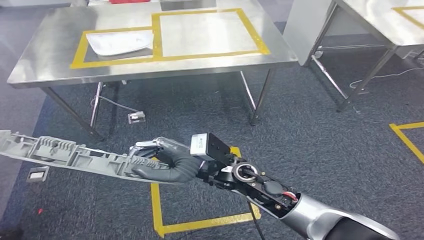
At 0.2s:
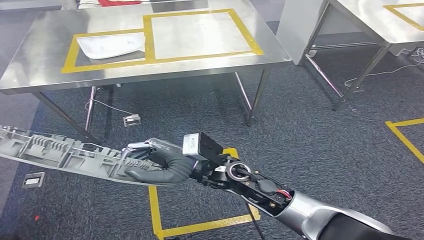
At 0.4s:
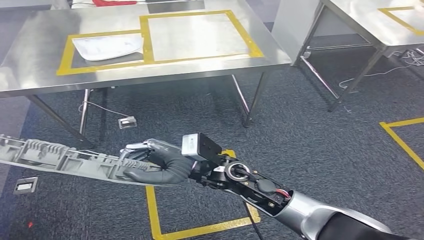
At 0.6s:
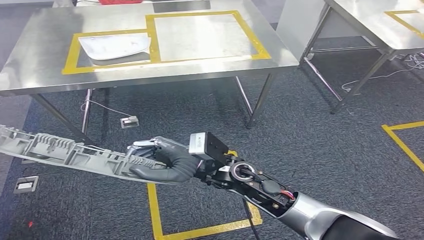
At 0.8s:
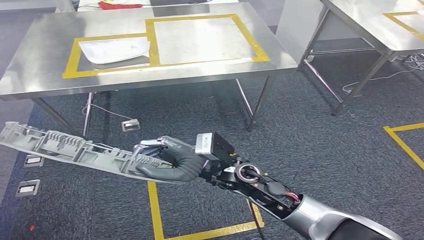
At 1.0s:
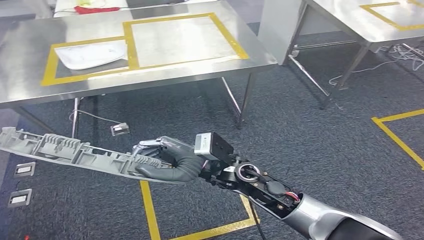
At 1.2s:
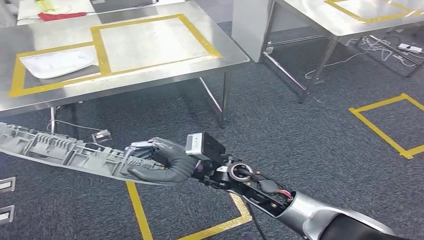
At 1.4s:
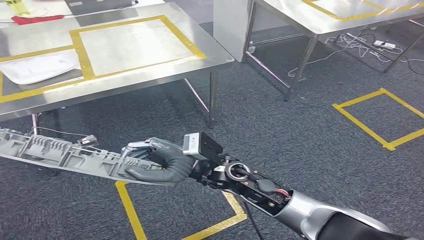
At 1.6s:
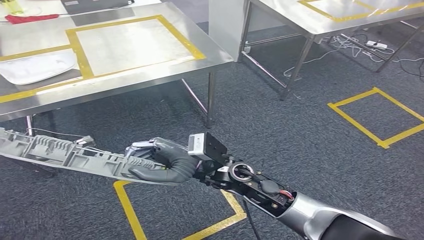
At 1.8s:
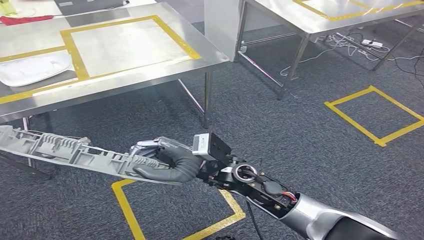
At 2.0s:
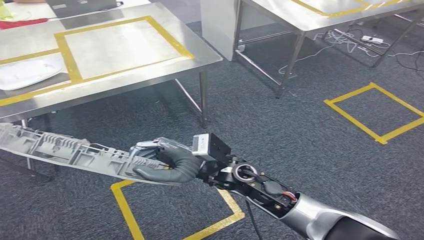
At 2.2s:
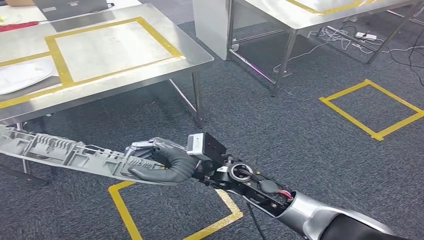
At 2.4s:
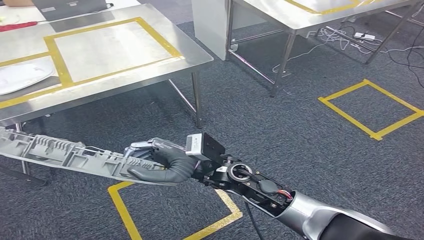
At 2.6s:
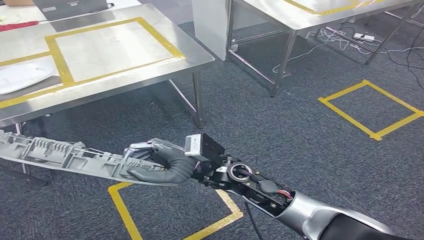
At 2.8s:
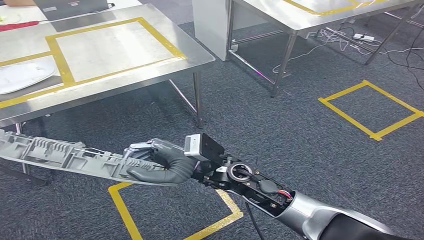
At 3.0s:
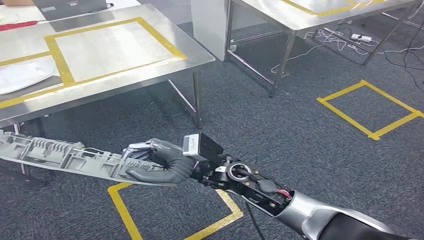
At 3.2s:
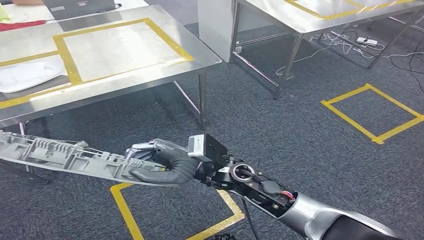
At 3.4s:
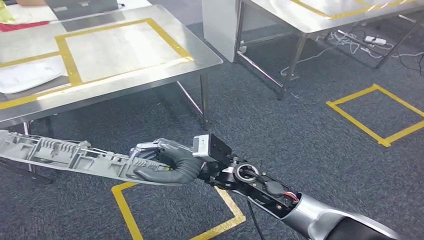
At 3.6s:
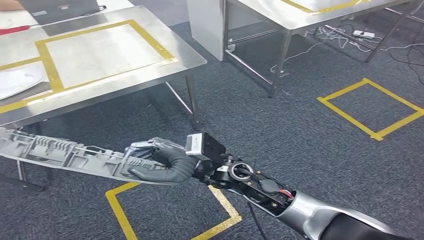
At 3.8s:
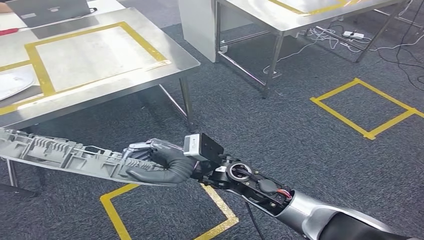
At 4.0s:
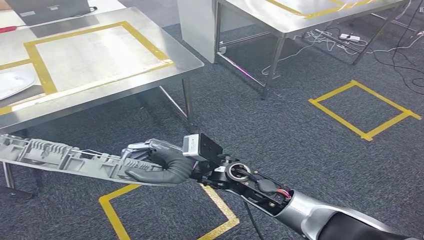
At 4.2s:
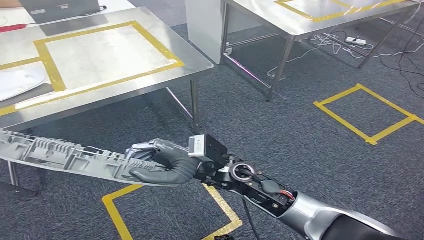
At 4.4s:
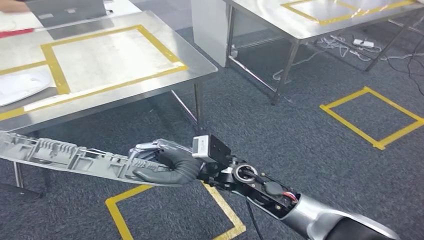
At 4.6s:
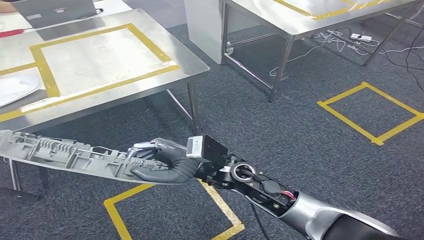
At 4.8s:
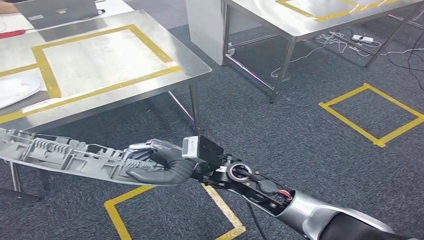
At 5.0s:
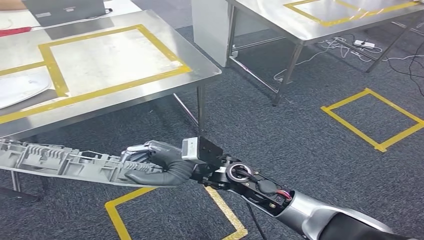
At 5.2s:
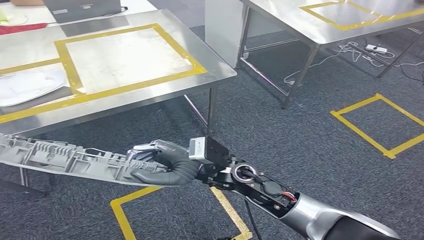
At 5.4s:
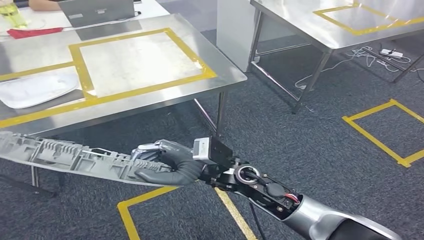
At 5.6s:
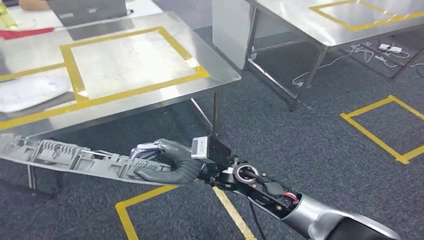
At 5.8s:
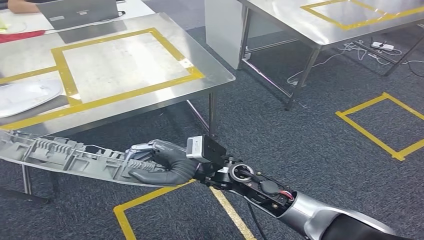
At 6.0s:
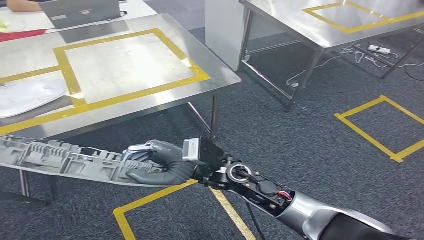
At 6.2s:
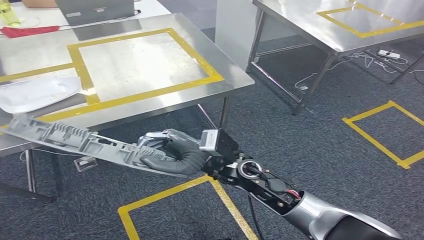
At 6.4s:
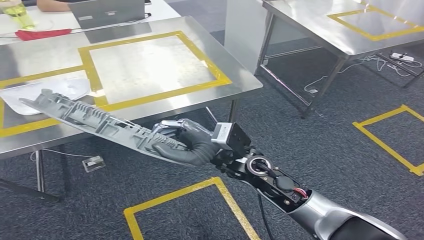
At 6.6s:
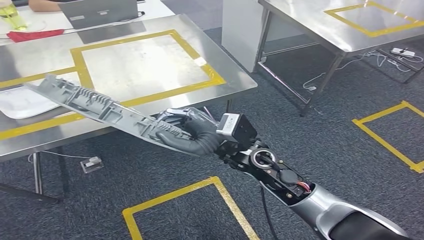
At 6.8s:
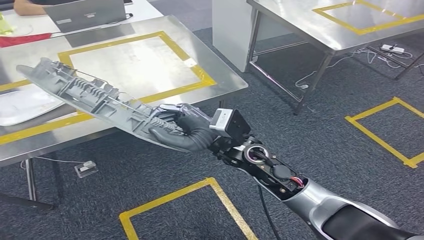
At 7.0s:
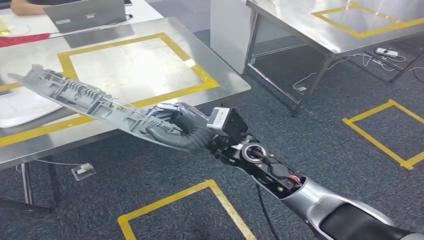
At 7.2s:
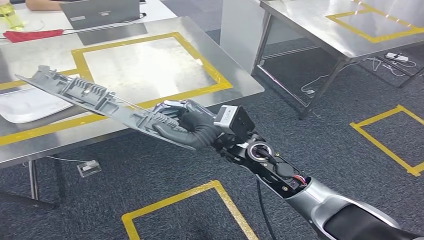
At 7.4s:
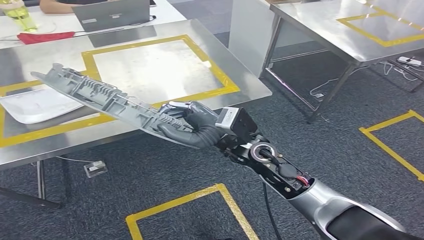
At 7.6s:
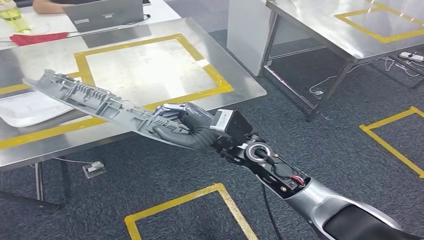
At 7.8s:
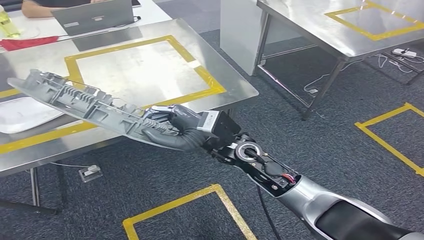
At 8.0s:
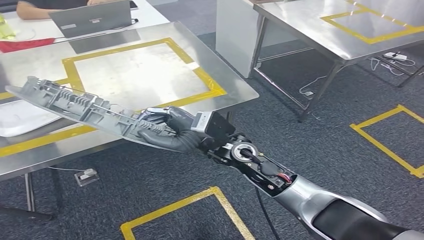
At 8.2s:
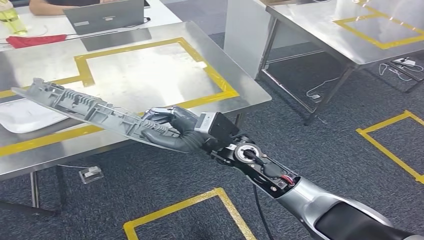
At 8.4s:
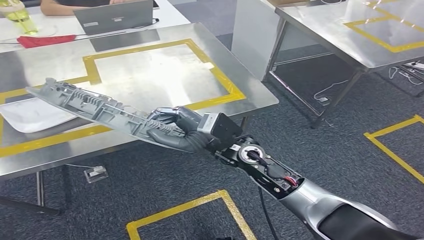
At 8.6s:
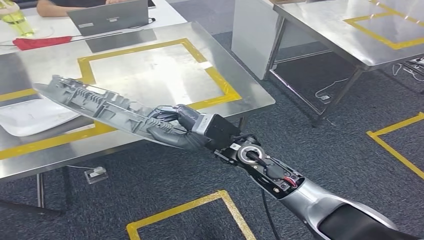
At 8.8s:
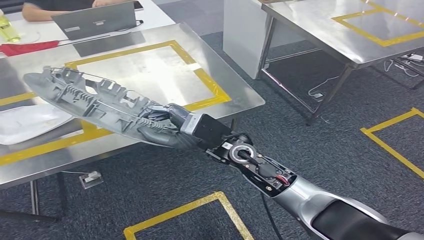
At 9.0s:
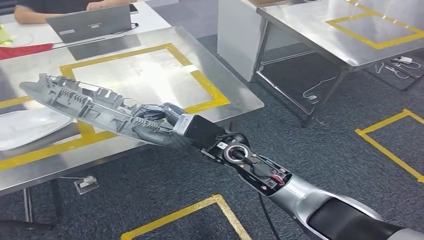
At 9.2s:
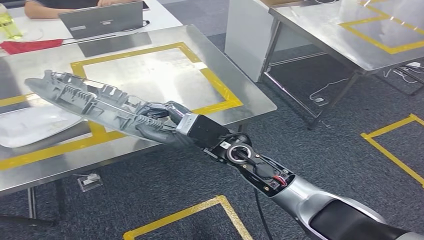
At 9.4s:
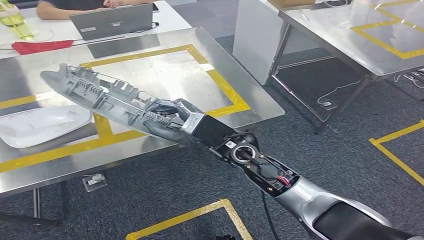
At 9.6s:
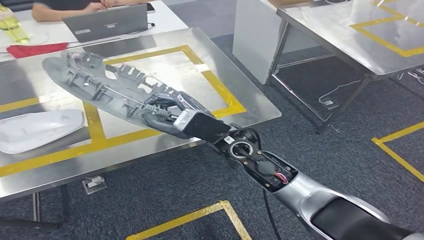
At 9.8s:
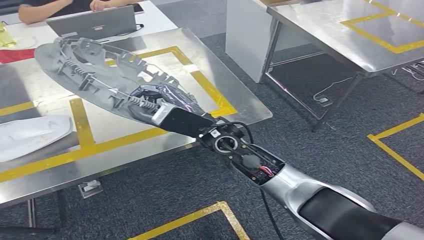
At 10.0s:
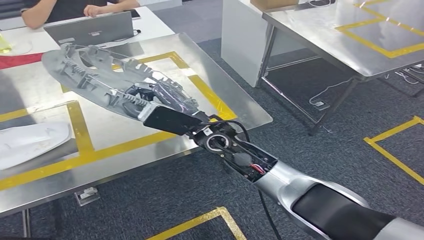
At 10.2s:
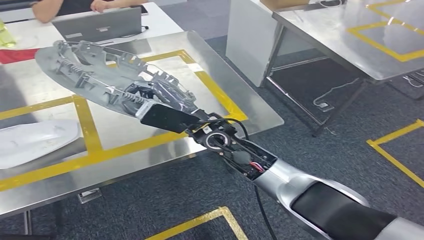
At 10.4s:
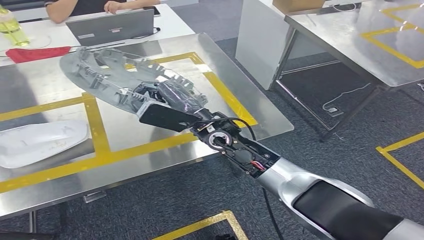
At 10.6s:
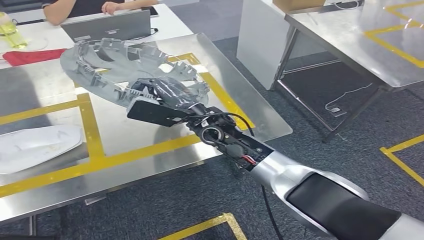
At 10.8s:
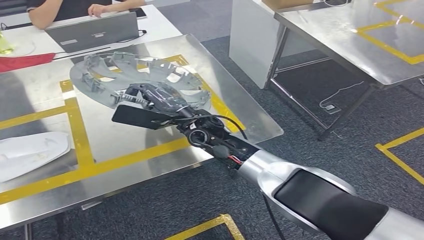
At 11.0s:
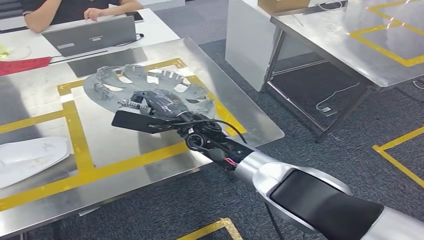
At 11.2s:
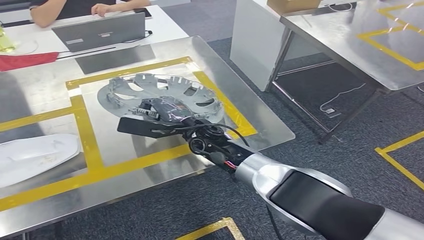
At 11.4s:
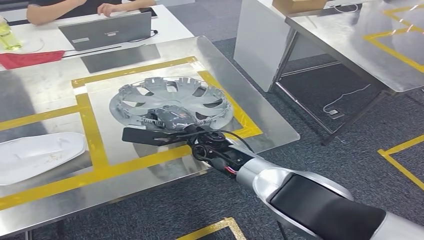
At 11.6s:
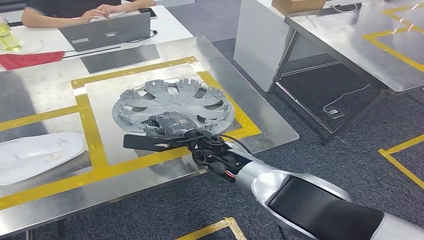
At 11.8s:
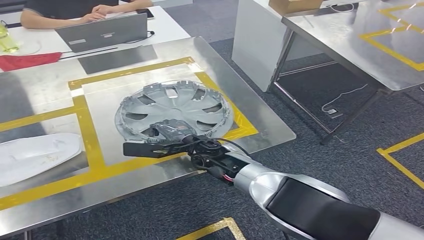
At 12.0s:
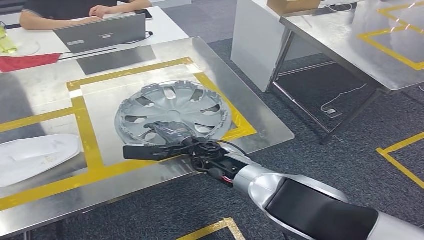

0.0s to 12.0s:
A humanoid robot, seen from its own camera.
Step, 0.0s to 8.0s: Move the small parts to the workbench.

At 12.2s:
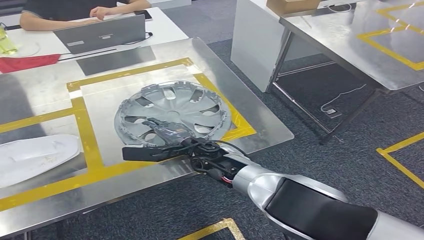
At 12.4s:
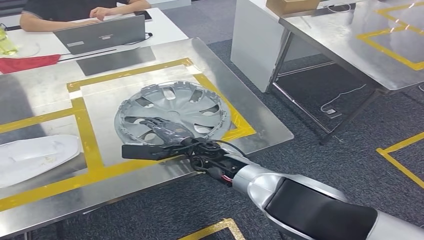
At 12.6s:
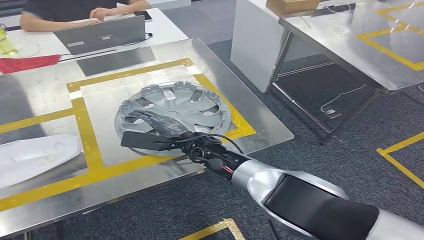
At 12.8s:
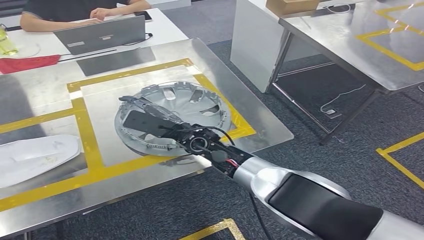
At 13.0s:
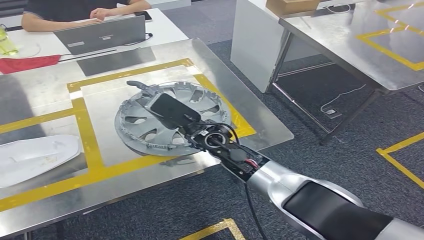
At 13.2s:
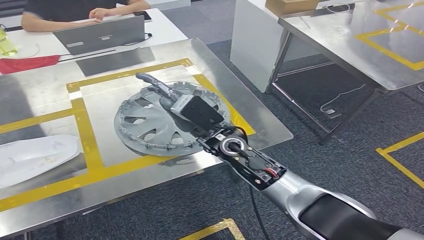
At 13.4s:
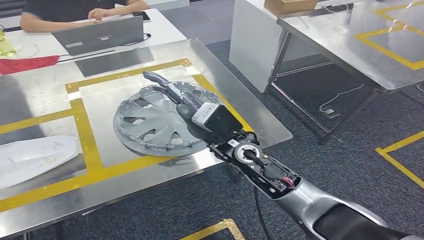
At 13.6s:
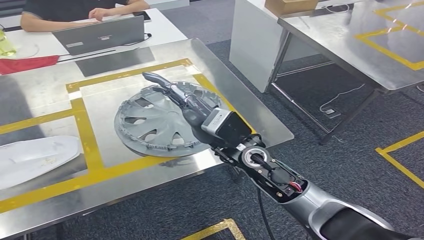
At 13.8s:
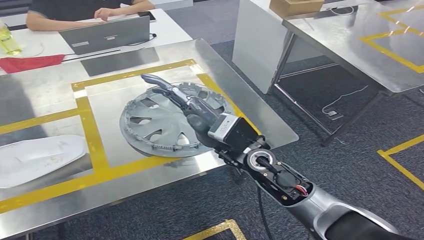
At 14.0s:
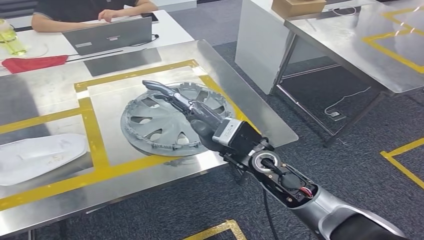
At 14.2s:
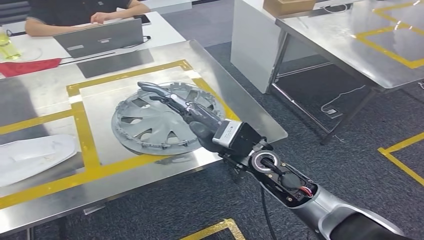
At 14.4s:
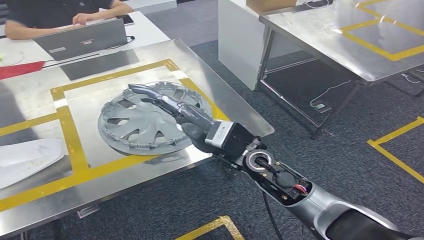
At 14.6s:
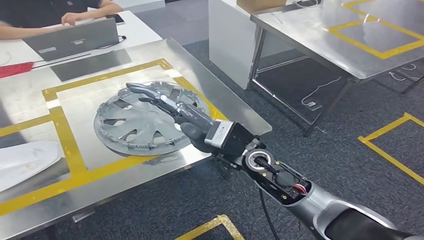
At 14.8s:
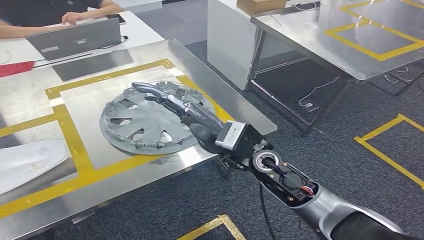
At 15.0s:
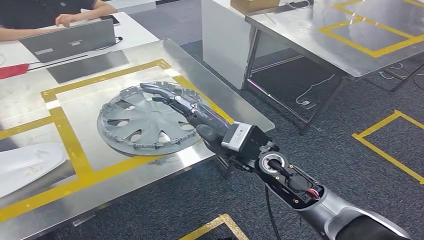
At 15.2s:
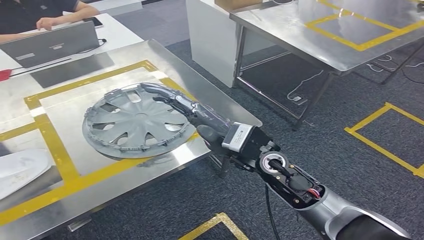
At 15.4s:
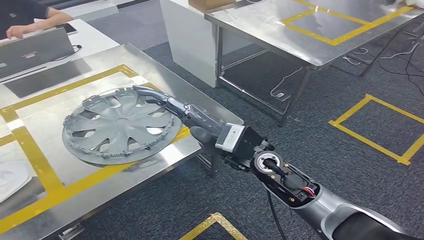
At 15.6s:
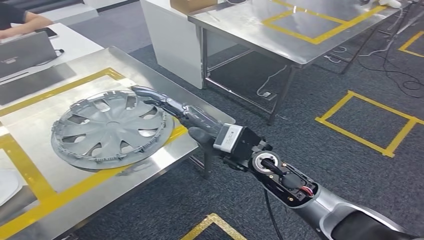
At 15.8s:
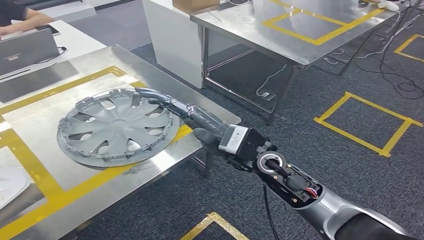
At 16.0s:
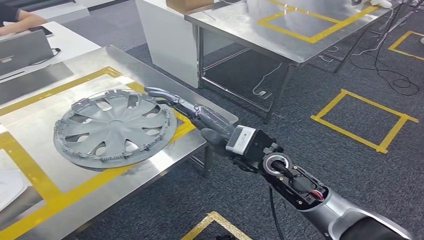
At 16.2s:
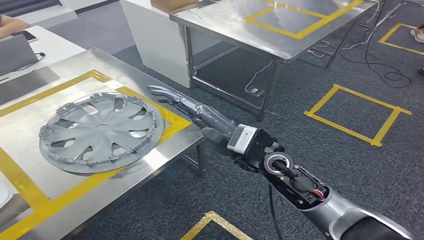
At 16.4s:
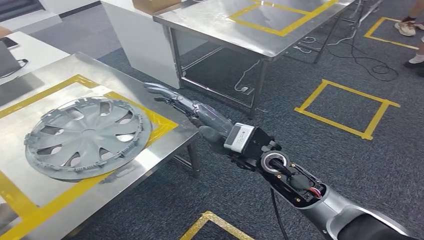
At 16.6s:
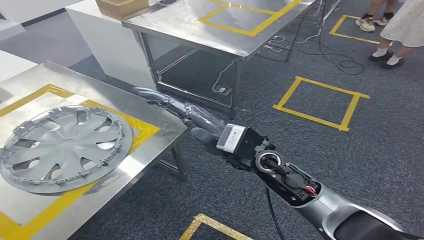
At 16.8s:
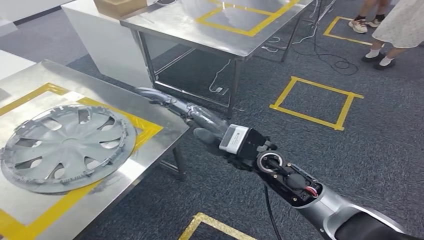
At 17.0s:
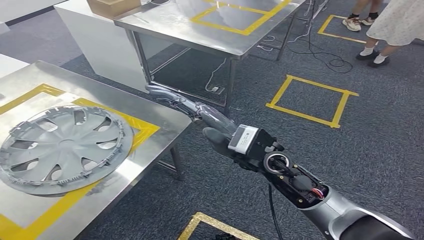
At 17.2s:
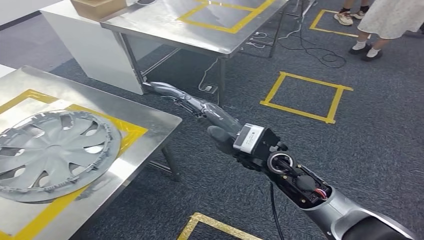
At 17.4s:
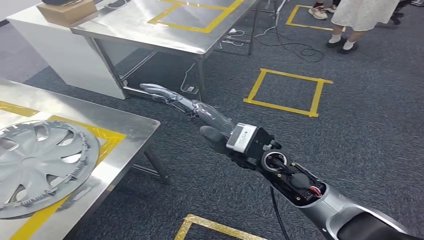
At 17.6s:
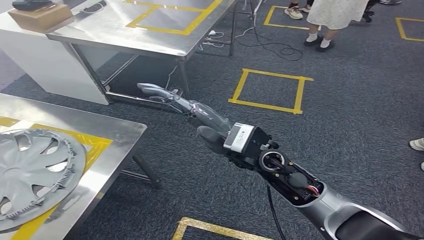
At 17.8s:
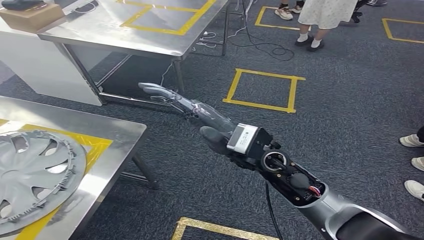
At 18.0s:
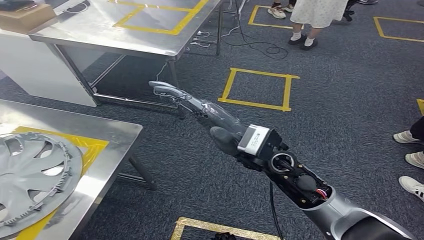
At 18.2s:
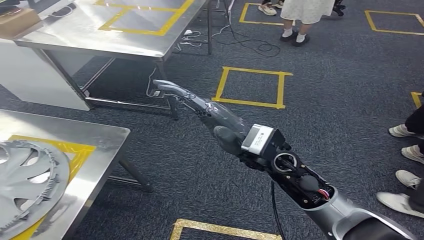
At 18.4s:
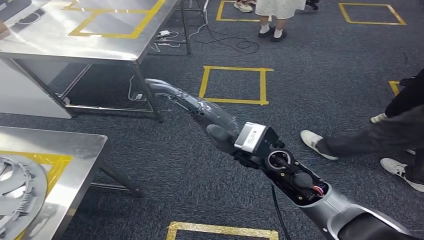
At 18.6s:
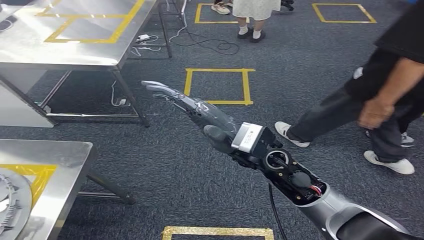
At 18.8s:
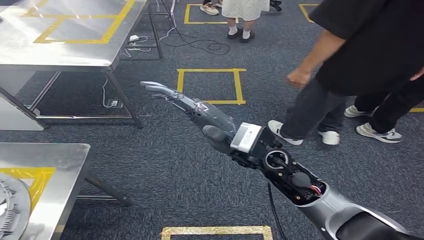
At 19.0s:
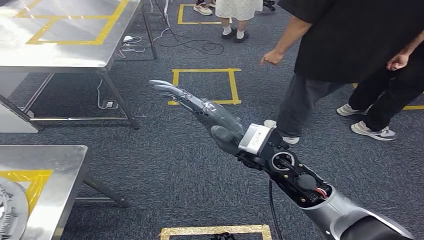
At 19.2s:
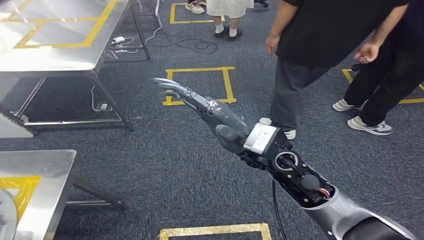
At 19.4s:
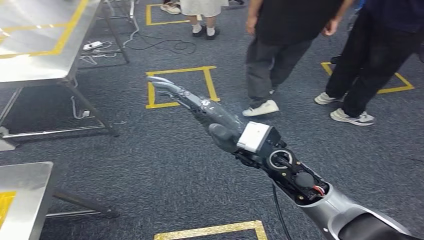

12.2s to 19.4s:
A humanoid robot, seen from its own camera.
Step, 12.2s to 15.0s: Insert the small parts into the corresponding slots on the workbench.
12.2s to 13.6s: The right hand heads upward, to the right and backward, covering some 15 cm.
